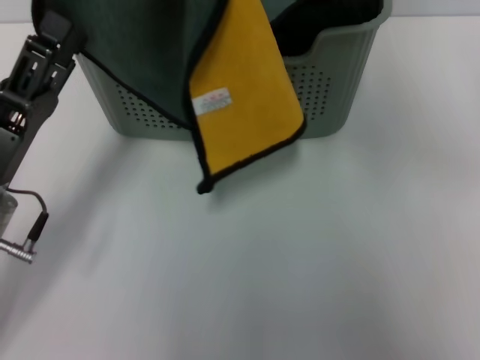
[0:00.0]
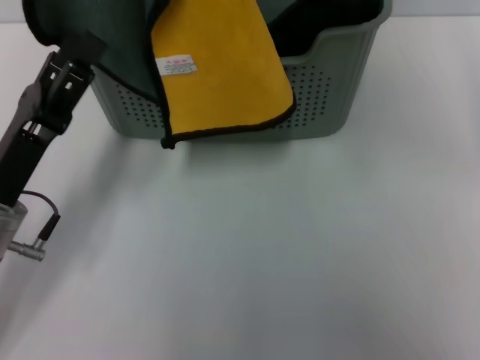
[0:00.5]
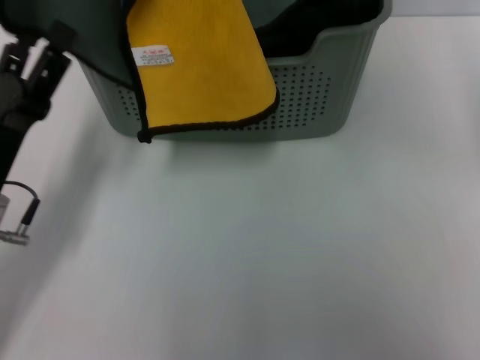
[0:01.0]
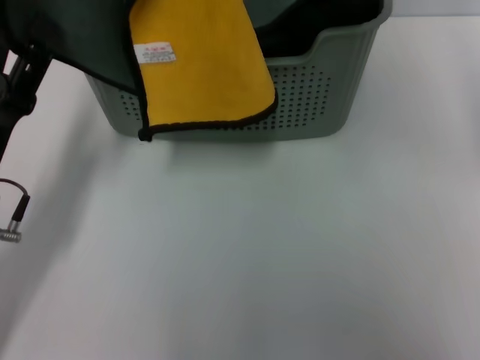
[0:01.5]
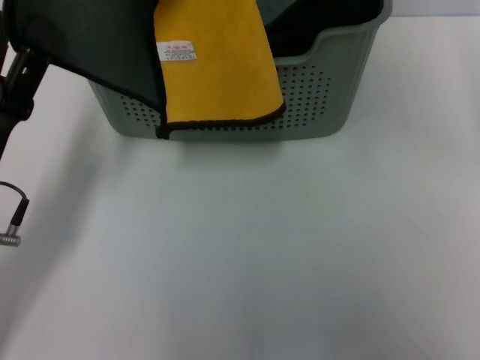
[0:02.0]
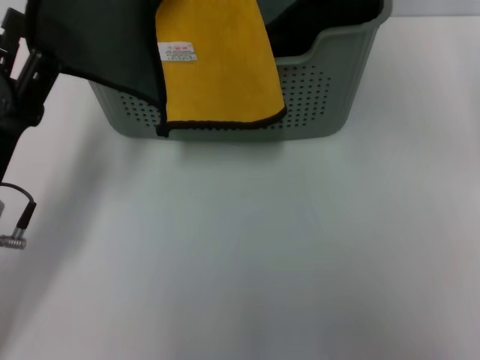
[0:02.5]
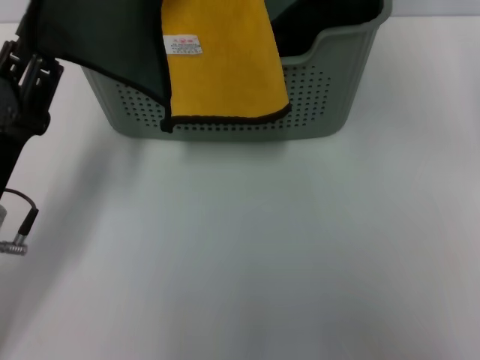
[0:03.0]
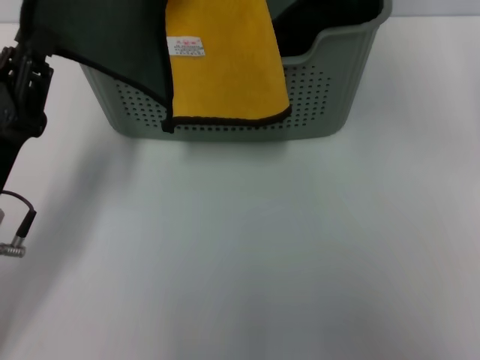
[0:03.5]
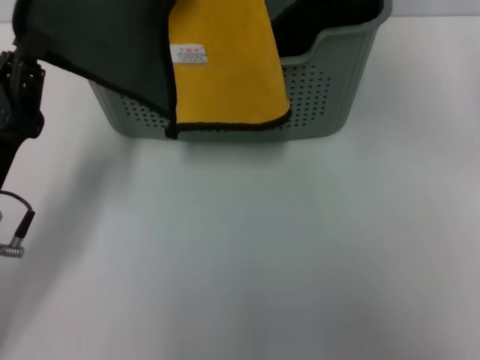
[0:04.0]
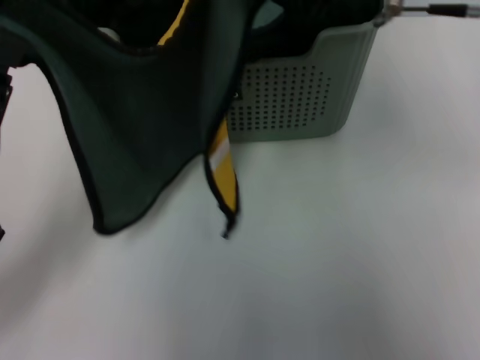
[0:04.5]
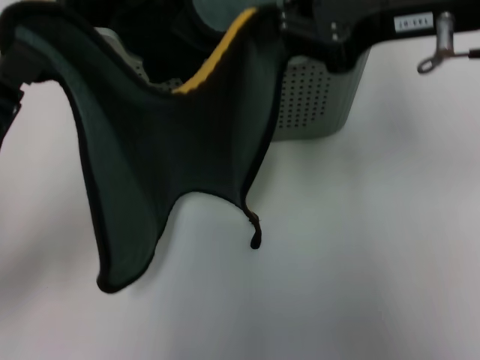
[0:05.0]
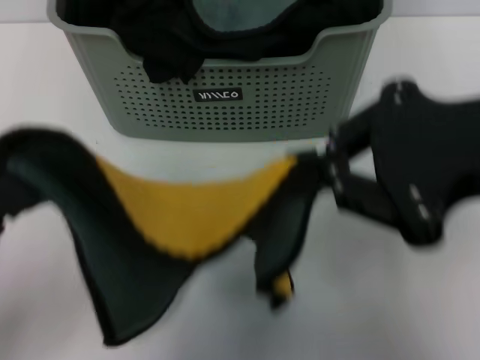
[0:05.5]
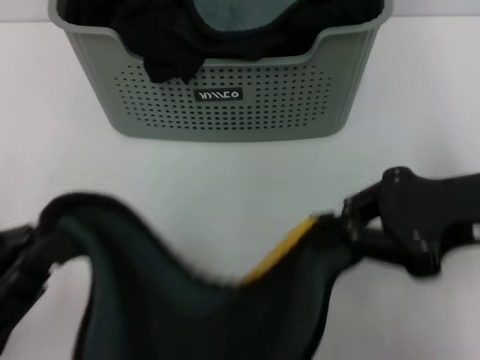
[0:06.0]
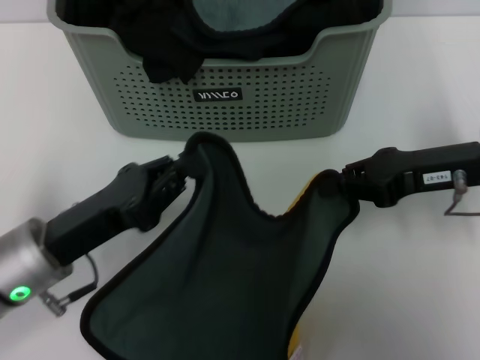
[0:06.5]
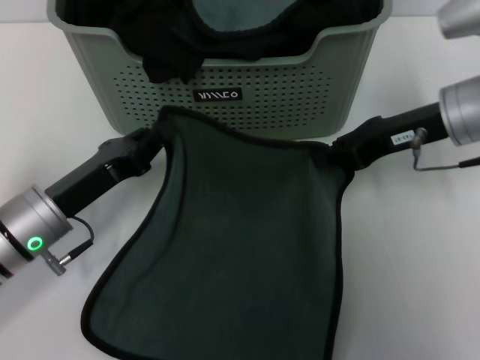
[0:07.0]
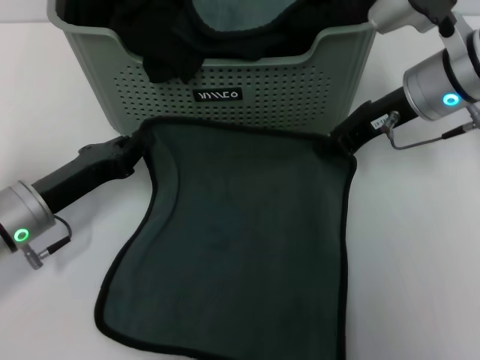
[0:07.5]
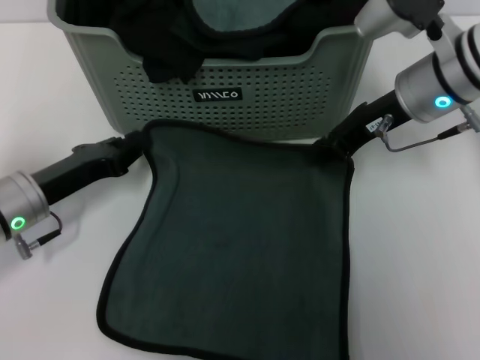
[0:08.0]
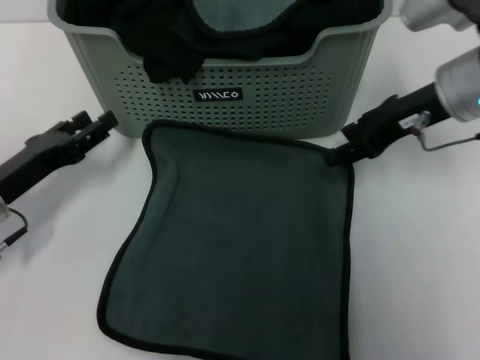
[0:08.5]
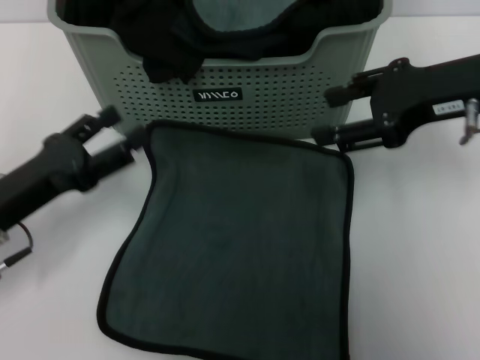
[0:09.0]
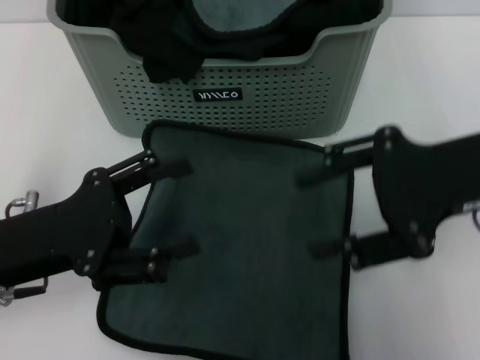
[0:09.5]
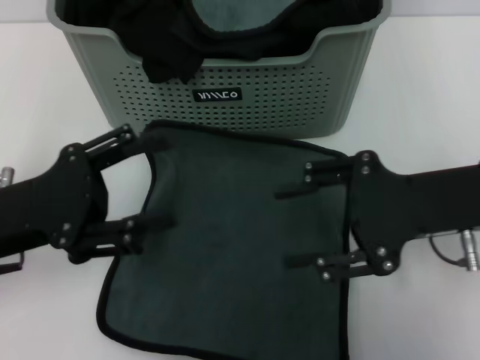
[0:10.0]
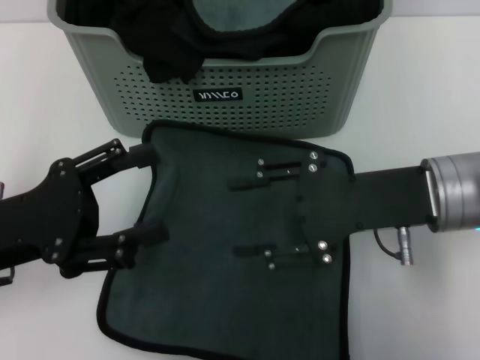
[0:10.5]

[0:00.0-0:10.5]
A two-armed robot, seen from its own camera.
Task of the whole recording: pick up the towel from the storage box and lay it flat on the table.
Step, 0:00.0 to 0:08.5: Spread the towel flat with the right gripper.
0:02.0 to 0:04.0: The left gripper closes up.
0:04.0 to 0:06.5: The right gripper shifts roughly 20 cm downward and to the right. The left gripper moves roughly 10 cm backward and comes back.
0:06.5 to 0:08.5: The right gripper travels forward by some 5 cm, and opens its fingers. Meanwhile the left gripper moves to the left and forward, approximately 10 cm, and opens up.
0:08.5 to 0:10.5: The left gripper heads upward and backward, covering roughly 10 cm, and opens its fingers; the right gripper is displaced backward by some 10 cm.
